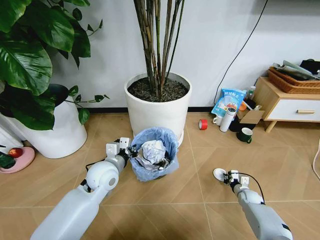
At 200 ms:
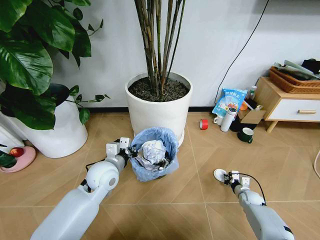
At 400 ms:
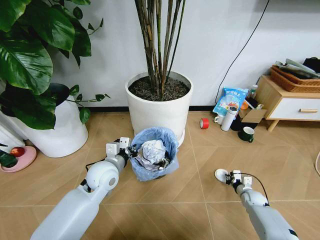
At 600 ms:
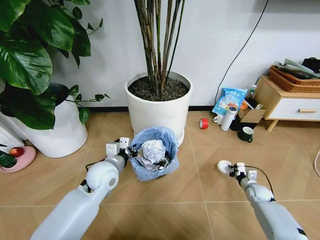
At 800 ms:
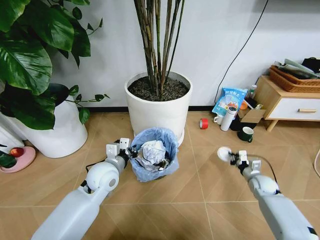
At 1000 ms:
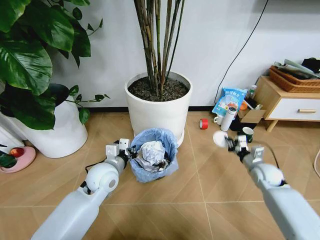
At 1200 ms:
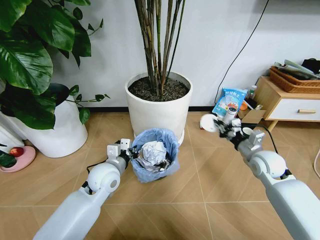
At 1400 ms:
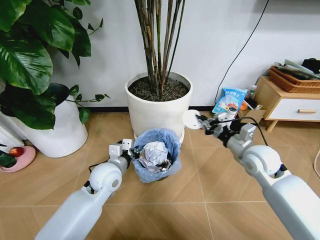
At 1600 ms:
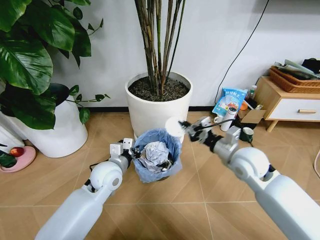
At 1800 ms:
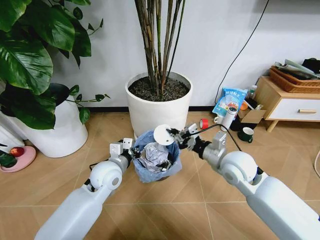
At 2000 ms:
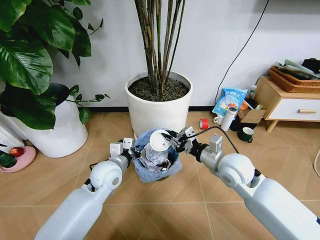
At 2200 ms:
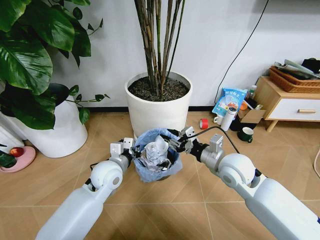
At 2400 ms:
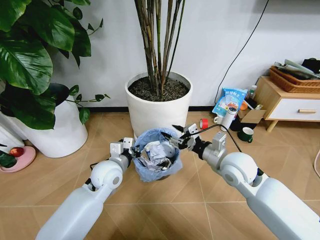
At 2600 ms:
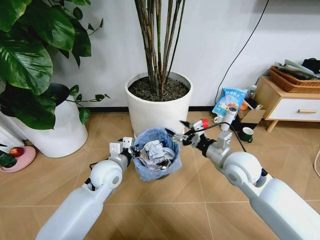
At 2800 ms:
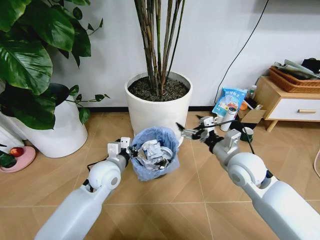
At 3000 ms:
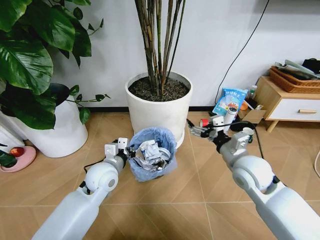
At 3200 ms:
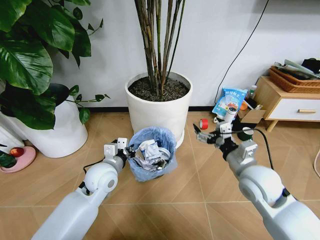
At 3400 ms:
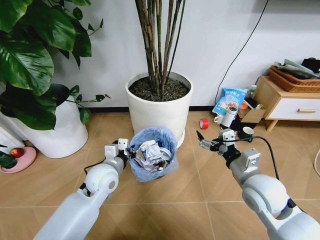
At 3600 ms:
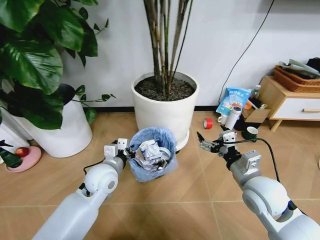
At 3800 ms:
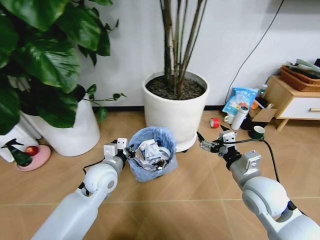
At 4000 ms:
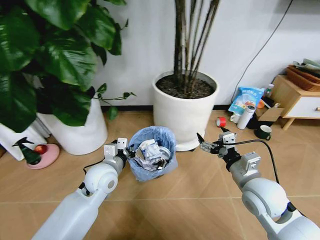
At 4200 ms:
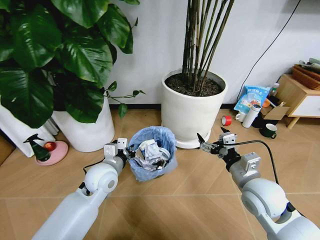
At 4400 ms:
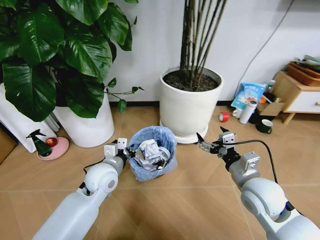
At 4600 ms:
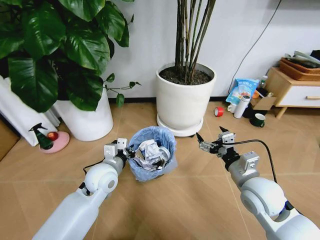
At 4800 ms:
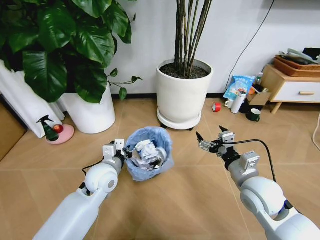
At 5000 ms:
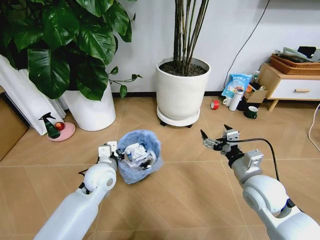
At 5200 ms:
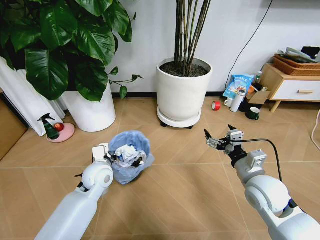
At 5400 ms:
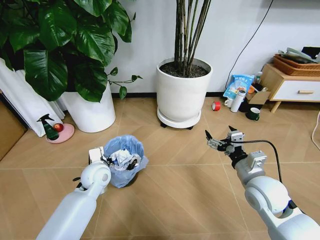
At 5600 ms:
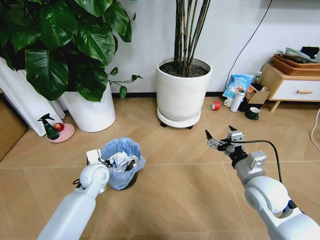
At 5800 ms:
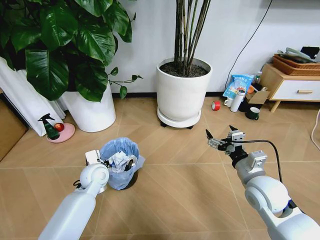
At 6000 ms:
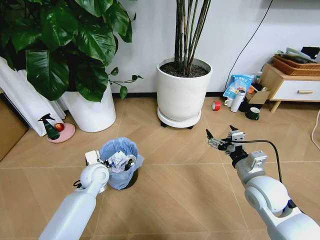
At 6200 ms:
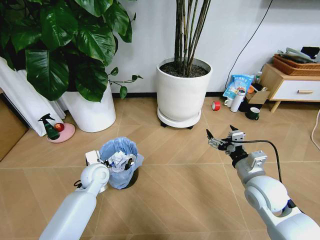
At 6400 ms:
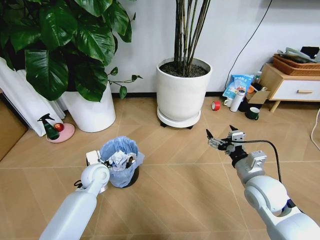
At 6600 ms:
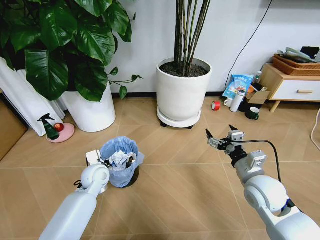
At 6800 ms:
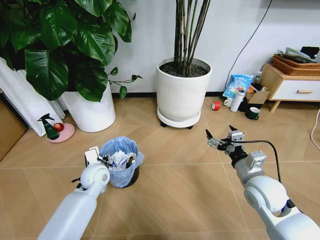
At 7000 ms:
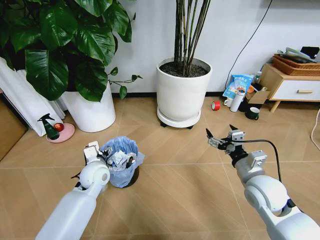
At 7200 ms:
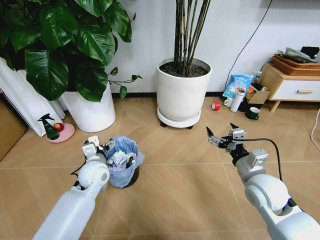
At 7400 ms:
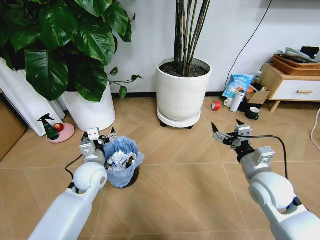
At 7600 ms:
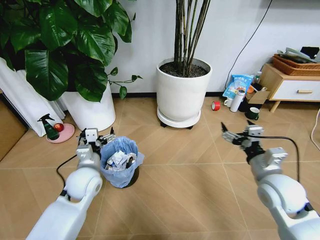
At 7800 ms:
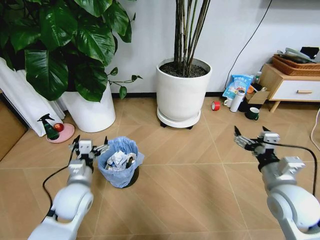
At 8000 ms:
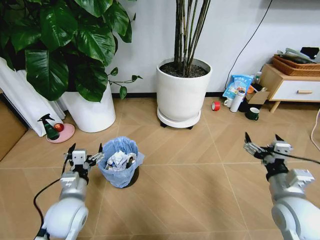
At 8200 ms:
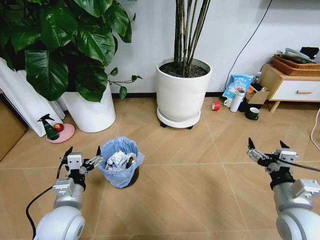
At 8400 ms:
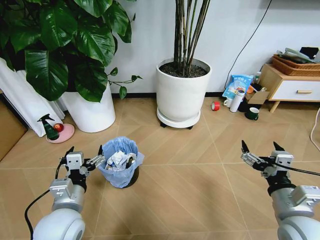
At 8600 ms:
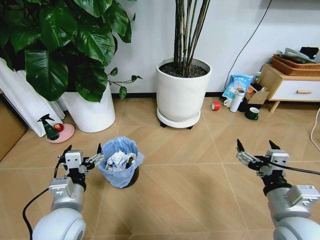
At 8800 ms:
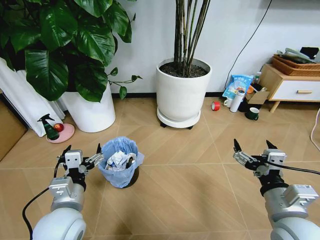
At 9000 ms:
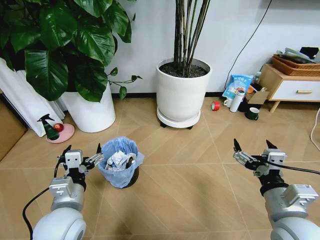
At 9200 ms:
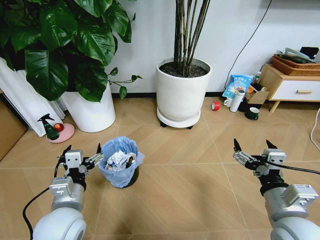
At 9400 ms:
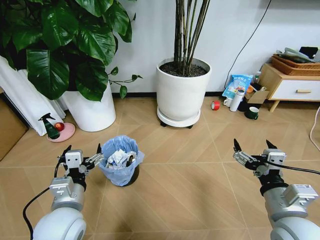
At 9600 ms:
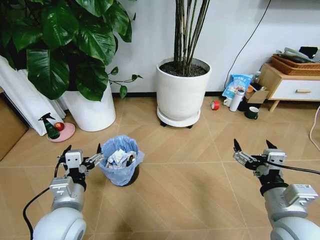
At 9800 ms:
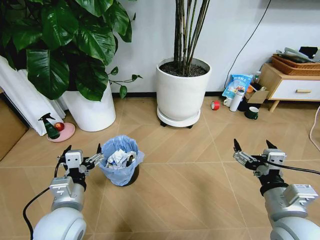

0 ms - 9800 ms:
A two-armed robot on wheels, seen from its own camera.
Task of the whole recording: Pick up the trash bin and place the garbage on the floor into it.
0 ms - 1400 ms: The right gripper goes some 35 cm upward.
1400 ms - 2800 ms: The right gripper travels to the left by about 5 cm, and opens up.
2800 ms - 4200 ms: The right gripper moves backward, roughly 5 cm.
4200 ms - 5600 ms: The left gripper shifts approximately 5 cm downward.
5600 ms - 7000 ms: The left gripper opens up.
7000 ms - 8400 ms: The left gripper moves backward, some 20 cm. The right gripper moves backward, some 10 cm.
8400 ms - 9800 ms: The grippers move only a little.
